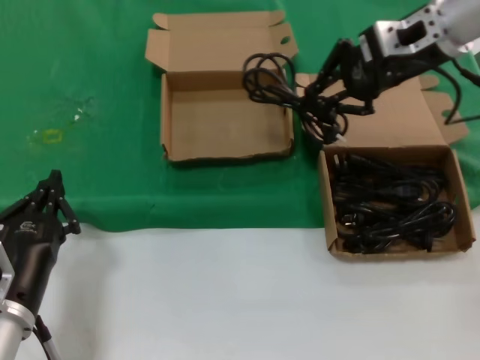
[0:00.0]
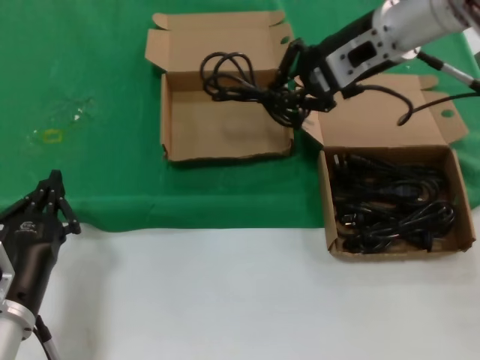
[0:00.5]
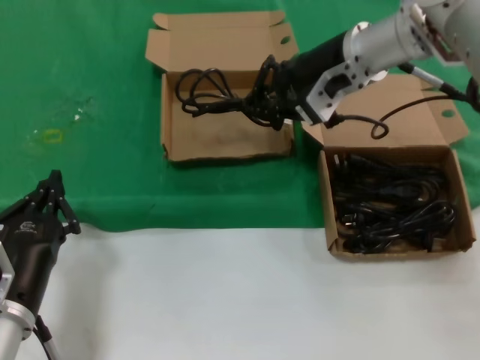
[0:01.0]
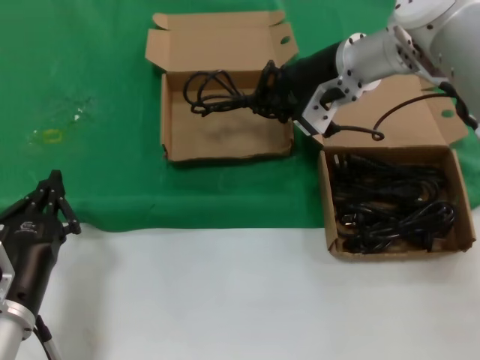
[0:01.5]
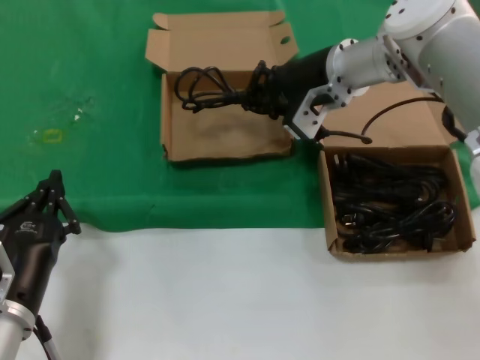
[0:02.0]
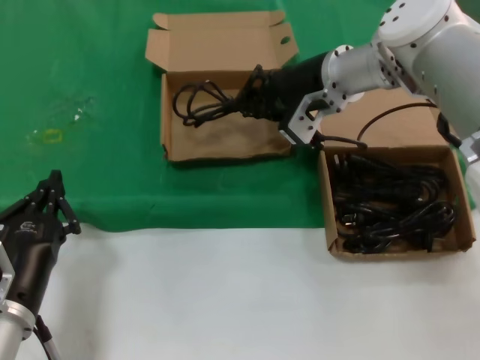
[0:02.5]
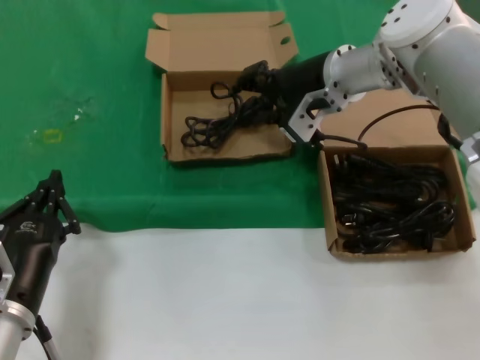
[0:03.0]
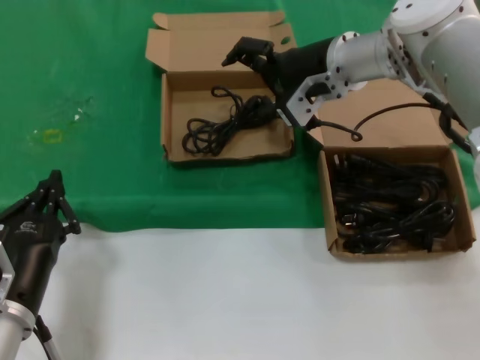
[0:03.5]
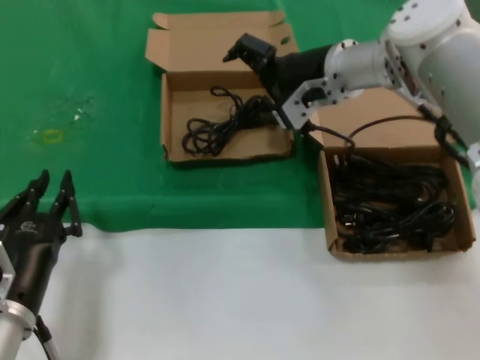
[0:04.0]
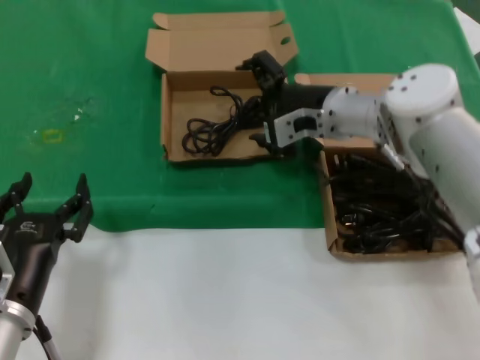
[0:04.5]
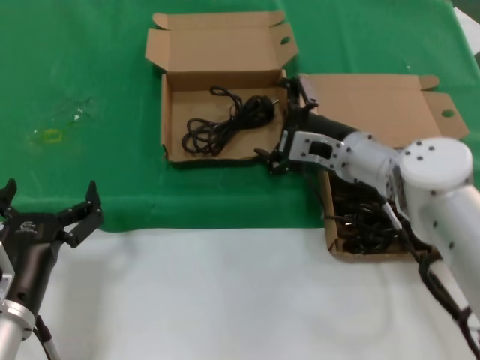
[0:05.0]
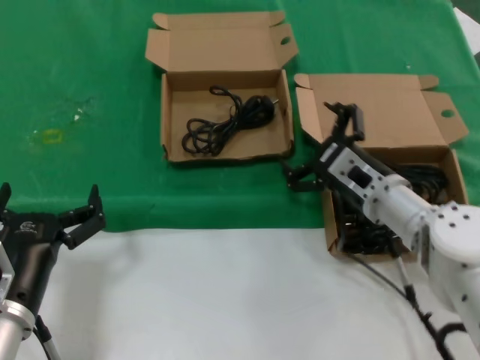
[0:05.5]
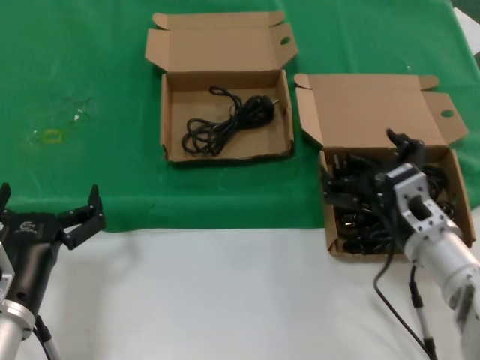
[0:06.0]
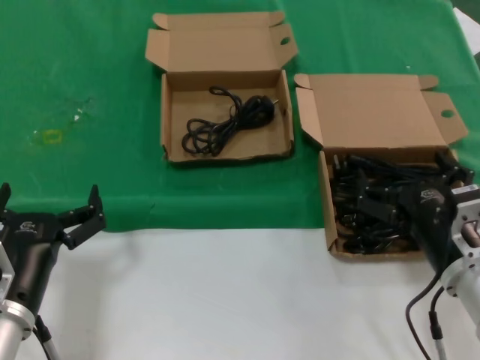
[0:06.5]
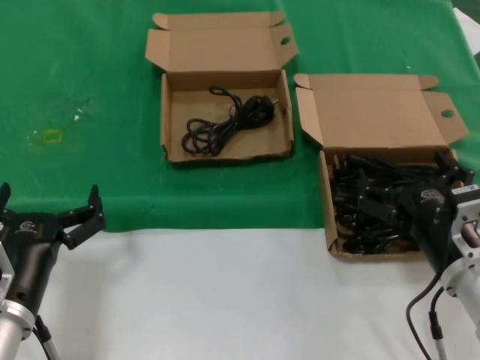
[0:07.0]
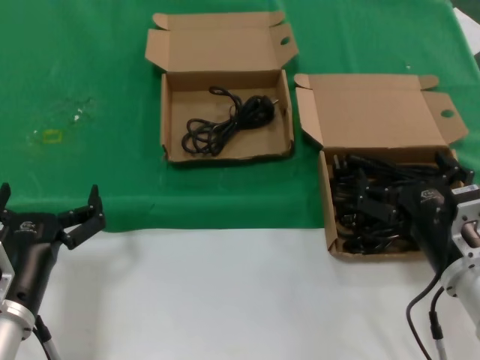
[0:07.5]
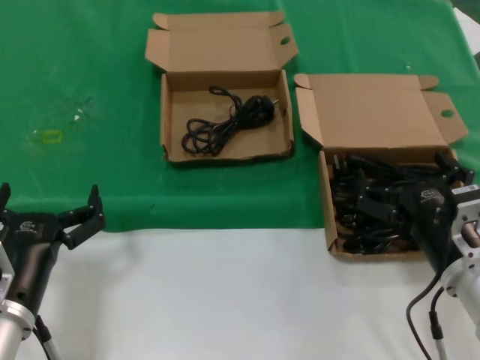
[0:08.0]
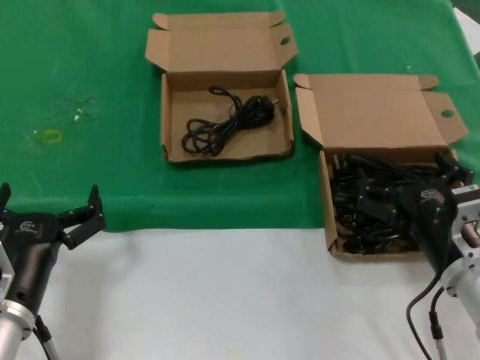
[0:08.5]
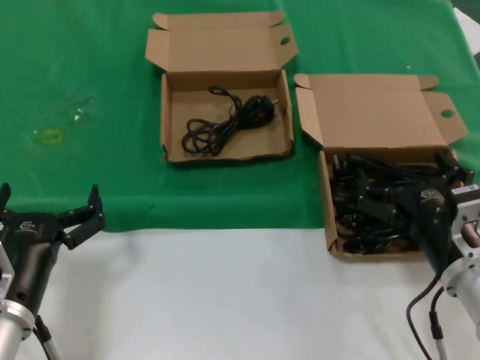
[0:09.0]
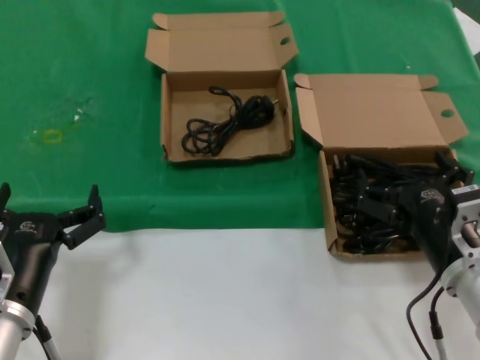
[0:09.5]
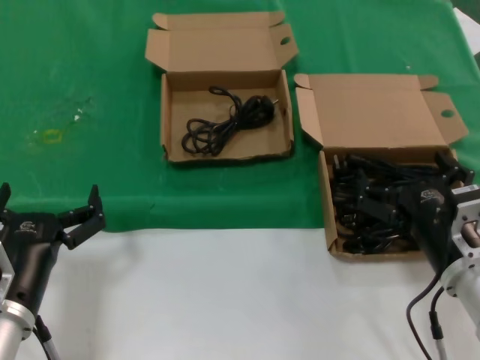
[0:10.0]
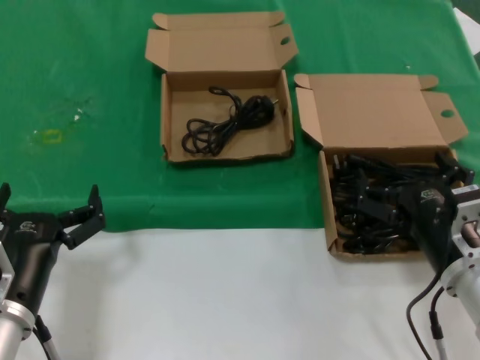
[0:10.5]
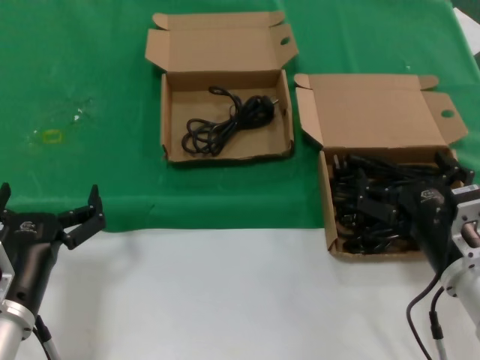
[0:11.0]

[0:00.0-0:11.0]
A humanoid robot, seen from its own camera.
Task of the whole recording: take the parts from the box containing them and put them into an empty box.
Step, 0:00.0 to 0:02.5: Place the data cable in the another box.
0:00.0 to 0:02.0: The right hand heads to the left and downward, covering about 15 cm.
0:02.0 to 0:03.5: The hands stay close to where they were, moving slightly.
0:03.5 to 0:05.5: The right hand goes approximately 20 cm downward and backward.
0:05.5 to 0:07.5: The right hand is displaced backward by about 15 cm.
0:07.5 to 0:11.0: Both hands stay about where they are.

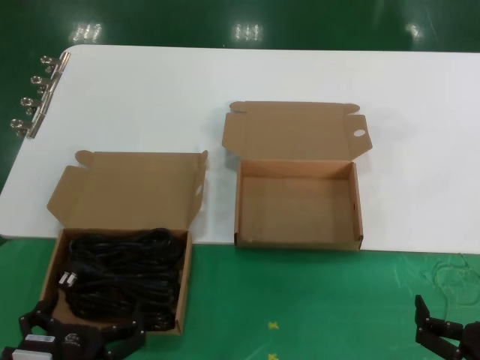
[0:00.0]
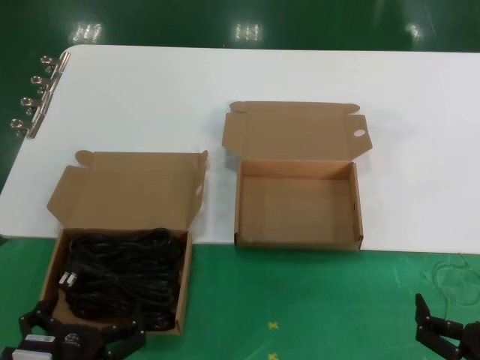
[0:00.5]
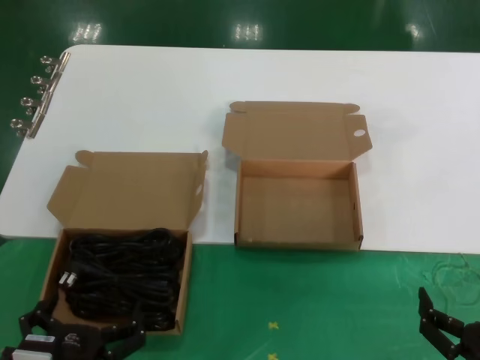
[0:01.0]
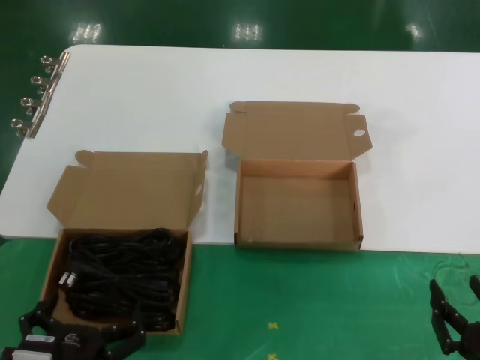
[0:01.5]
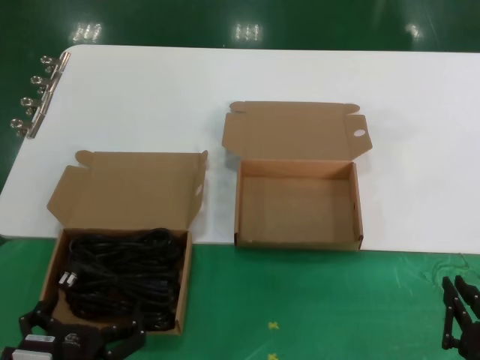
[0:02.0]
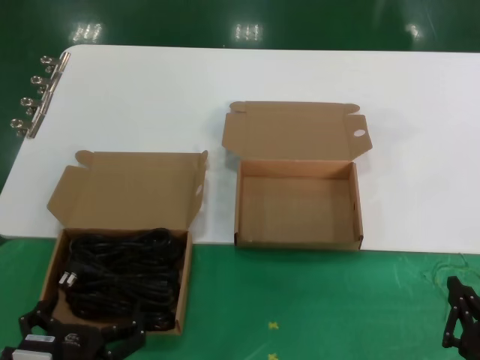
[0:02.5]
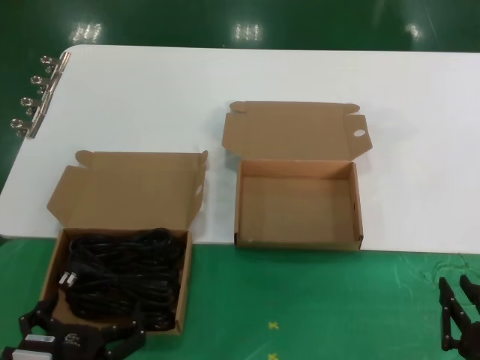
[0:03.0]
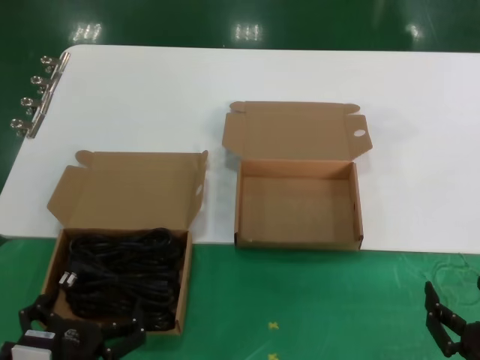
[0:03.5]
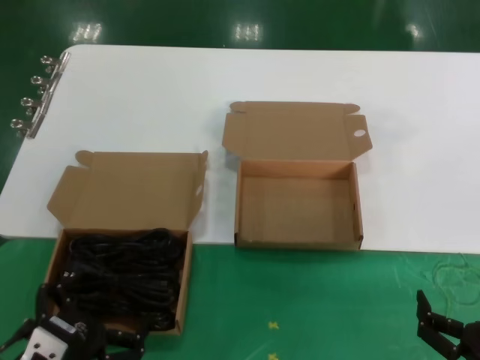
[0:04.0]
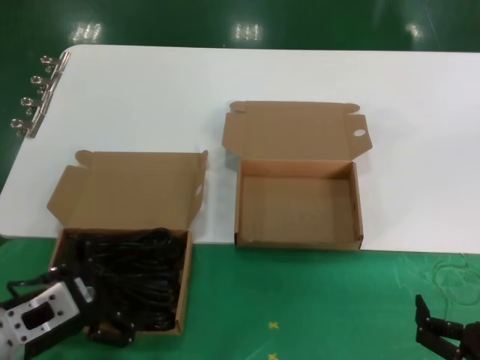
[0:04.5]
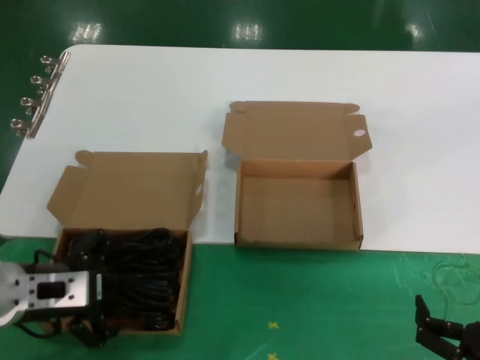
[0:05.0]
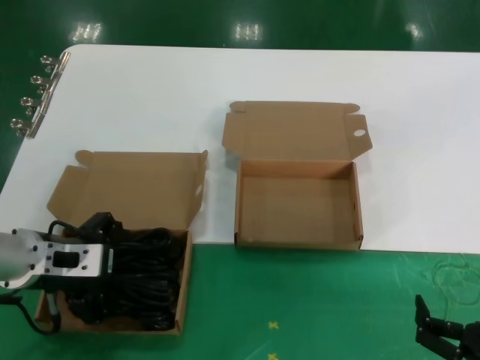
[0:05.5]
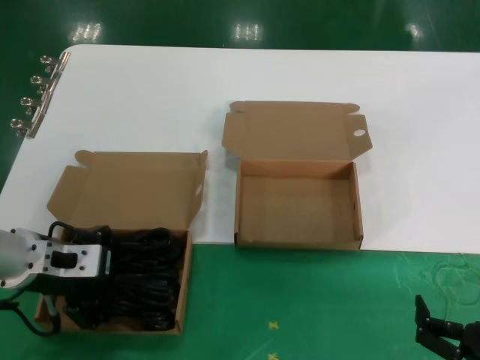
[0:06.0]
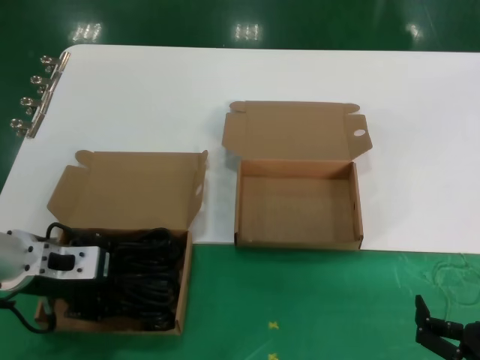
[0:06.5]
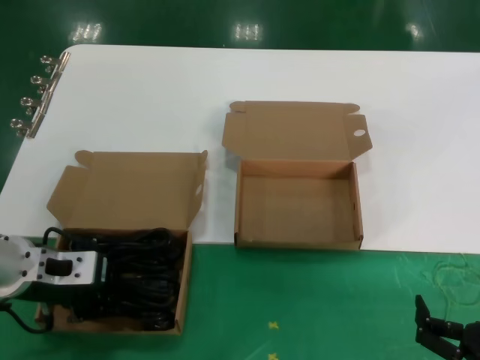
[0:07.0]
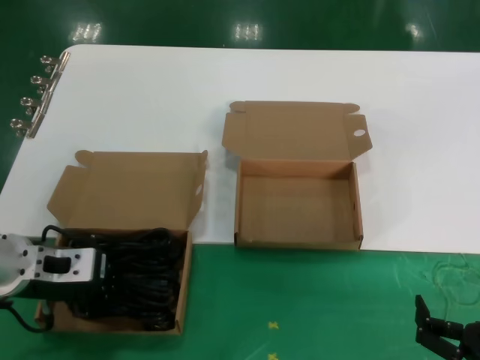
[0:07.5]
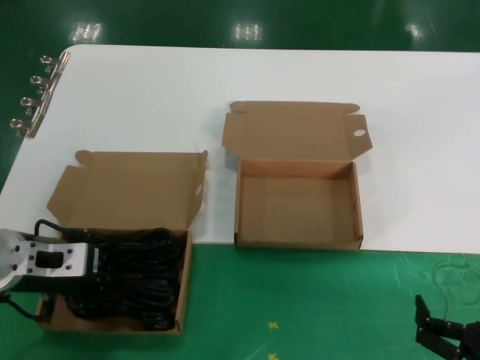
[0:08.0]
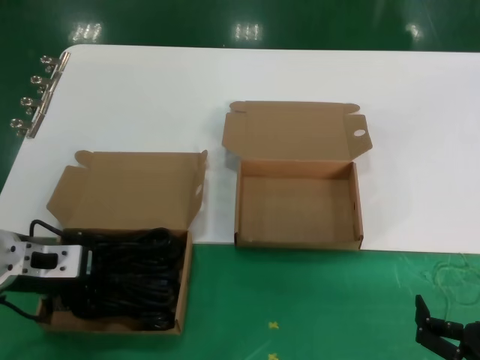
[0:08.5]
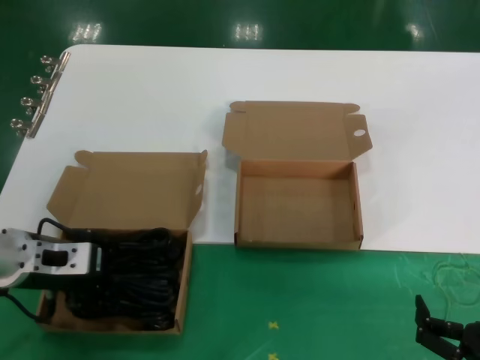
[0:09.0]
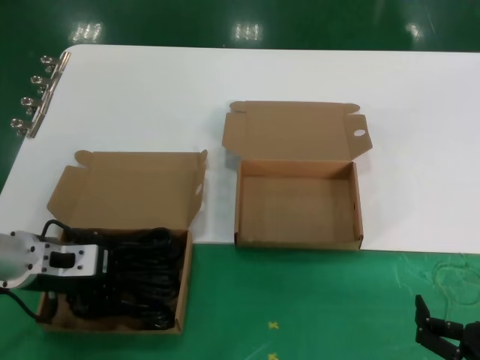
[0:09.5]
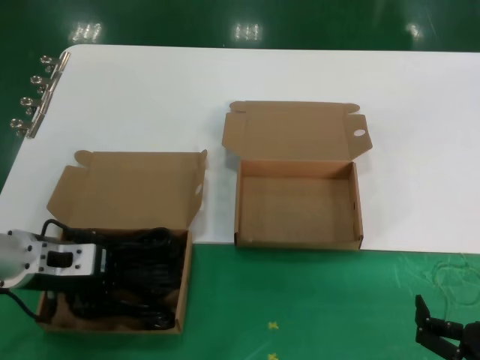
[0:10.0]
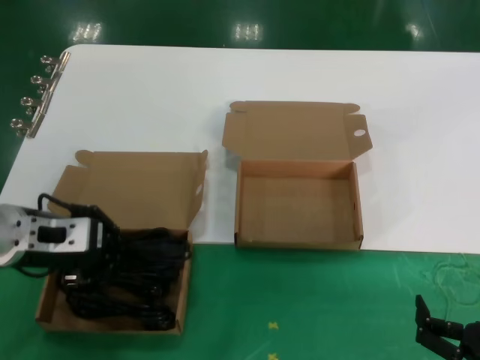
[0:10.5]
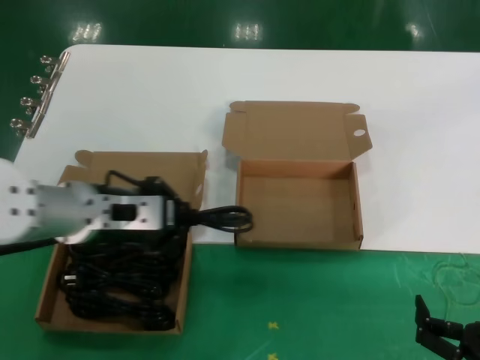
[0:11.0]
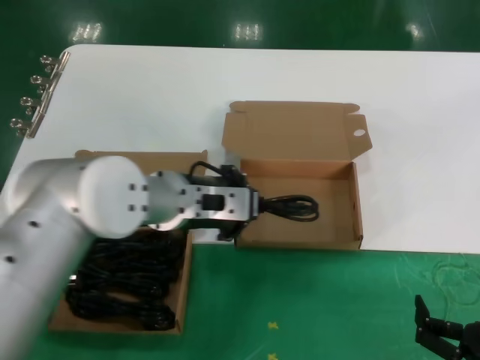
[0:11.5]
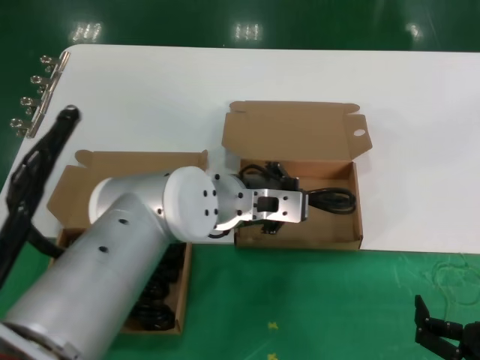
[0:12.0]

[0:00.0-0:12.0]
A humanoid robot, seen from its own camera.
Task of the whole recording: take the parts from the box containing them and put them into an empty box.
Step, 0:00.0 to 0:07.5: Grasp the data cable.
0:00.0 to 0:02.0: Both hands stay about where they are.
0:04.0 to 0:06.0: The left hand moves forward and upward, roughly 25 cm.
0:06.0 to 0:10.0: There are only small adjustments of the hands.
0:10.0 to 0:12.0: The left hand is displaced to the right by some 25 cm.

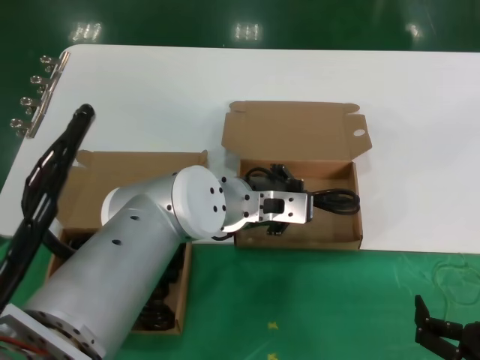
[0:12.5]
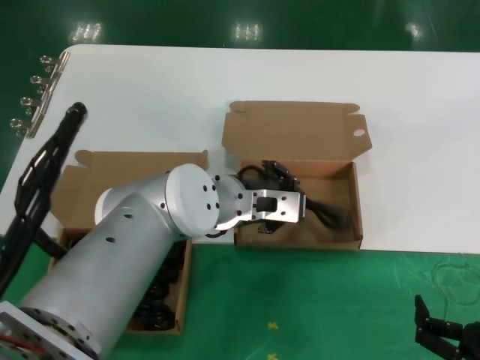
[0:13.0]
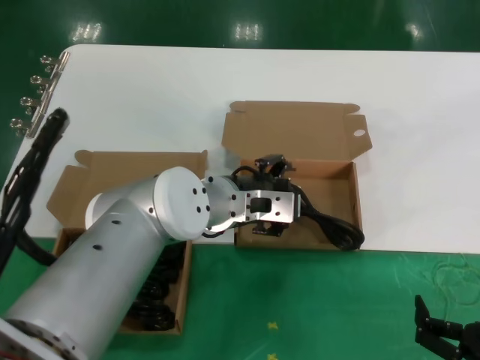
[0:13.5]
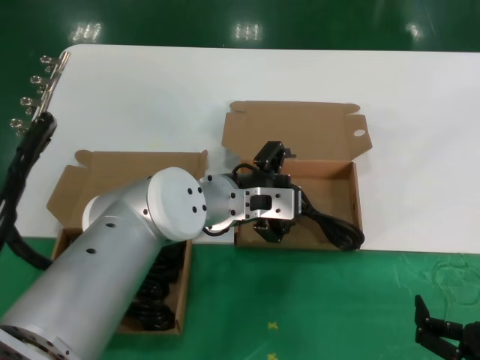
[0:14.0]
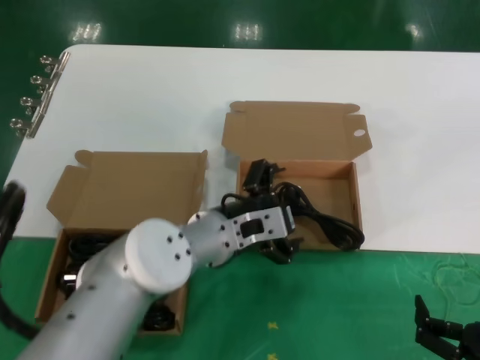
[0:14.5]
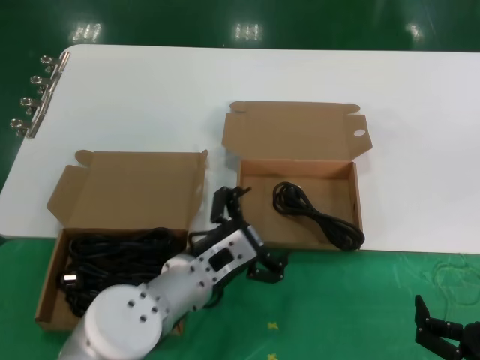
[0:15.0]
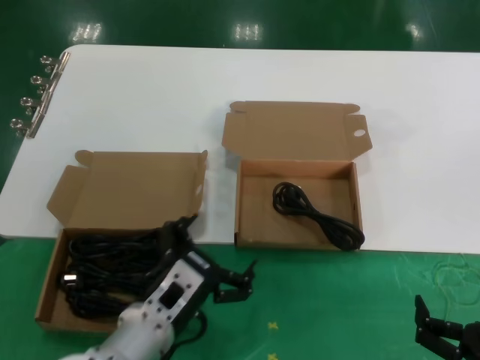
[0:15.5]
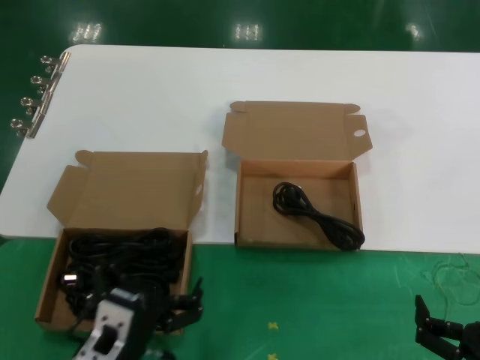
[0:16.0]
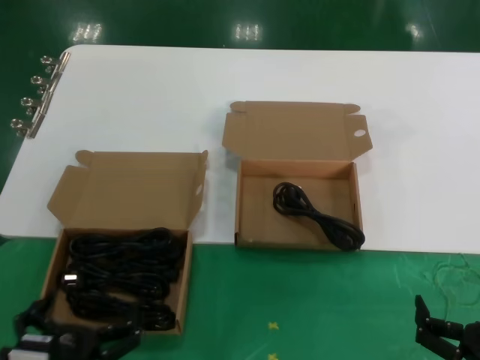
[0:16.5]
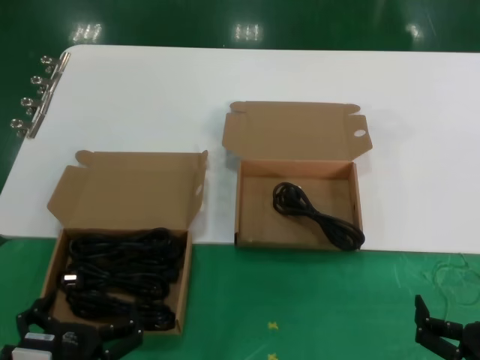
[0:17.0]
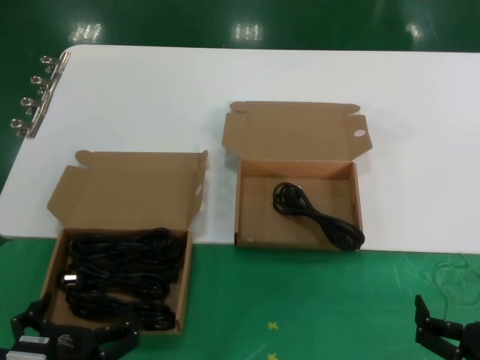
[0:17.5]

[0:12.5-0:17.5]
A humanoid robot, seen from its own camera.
Task of the whole recording: take the parts from the box containing them and put them into an empty box.
0:12.5 to 0:15.0: The left hand shifts some 15 cm downward, backward and to the left.
0:15.0 to 0:17.5: The left hand shifts roughly 25 cm backward, to the left and downward.
